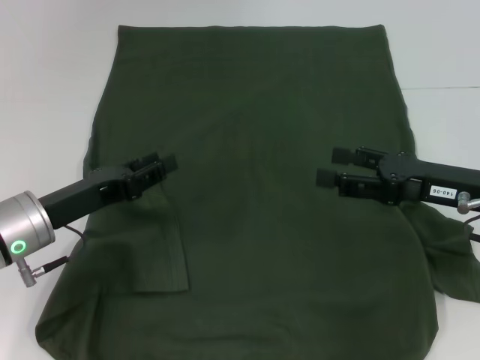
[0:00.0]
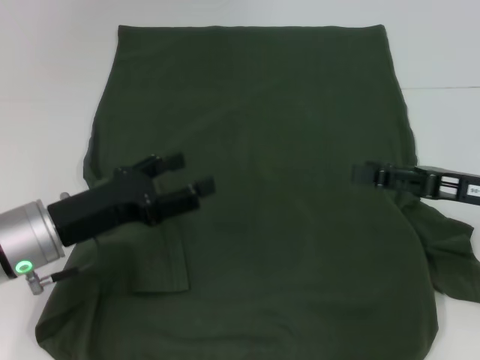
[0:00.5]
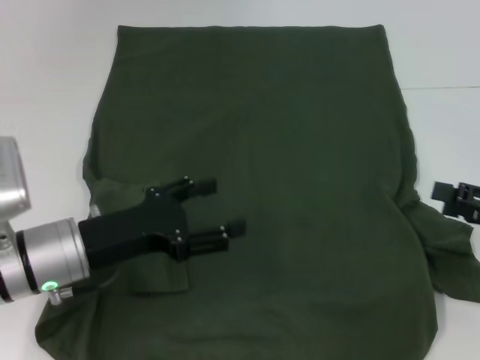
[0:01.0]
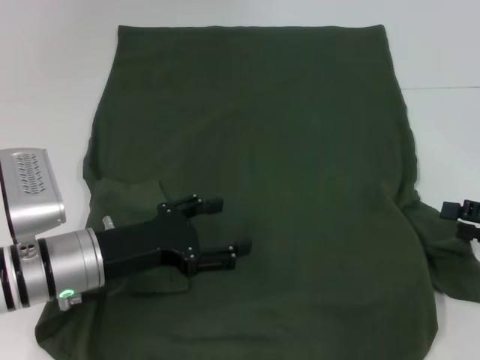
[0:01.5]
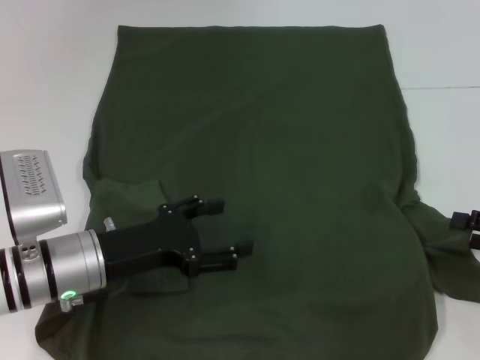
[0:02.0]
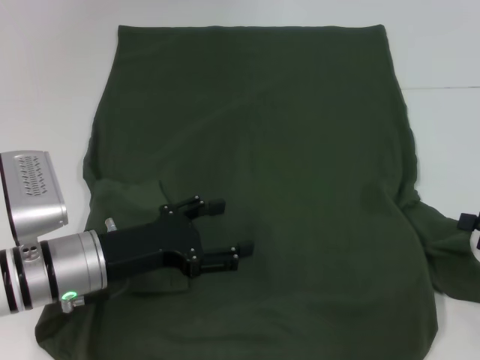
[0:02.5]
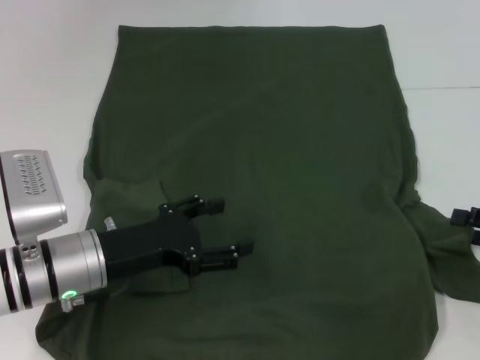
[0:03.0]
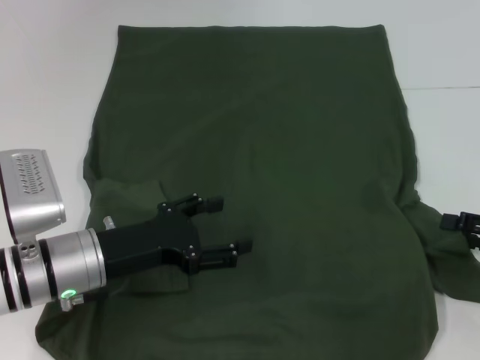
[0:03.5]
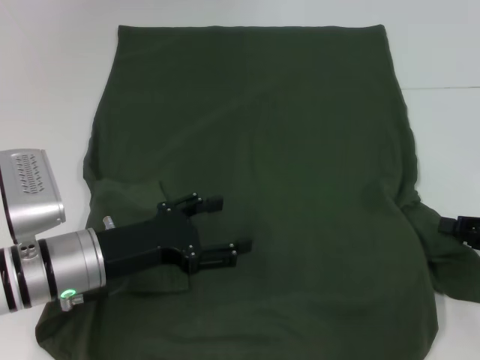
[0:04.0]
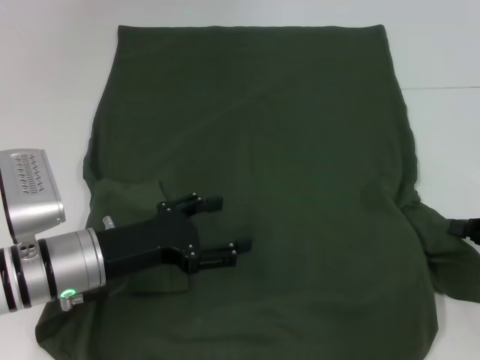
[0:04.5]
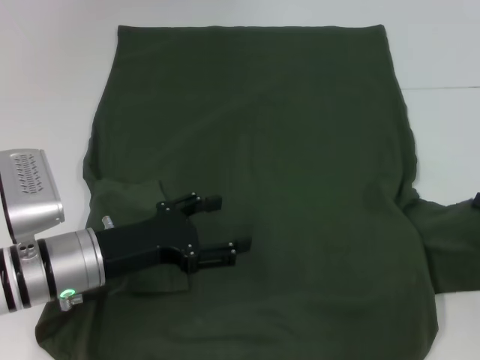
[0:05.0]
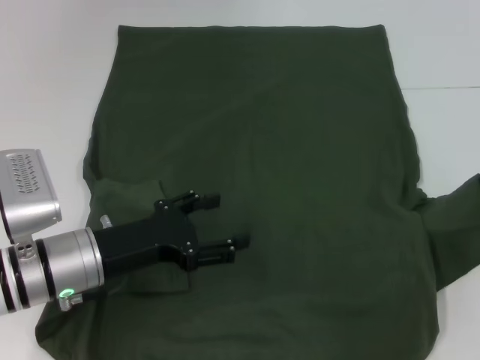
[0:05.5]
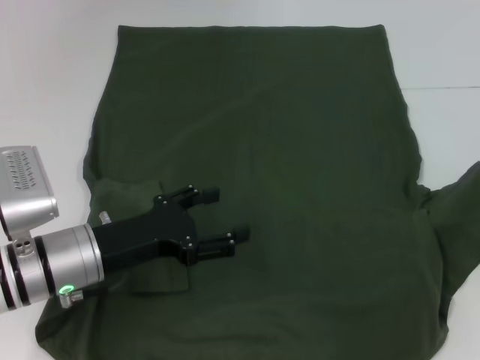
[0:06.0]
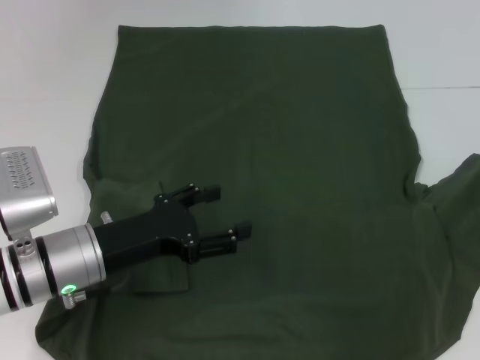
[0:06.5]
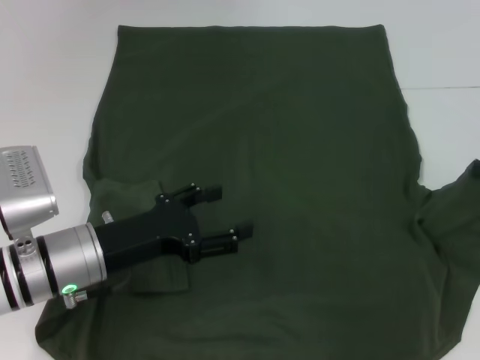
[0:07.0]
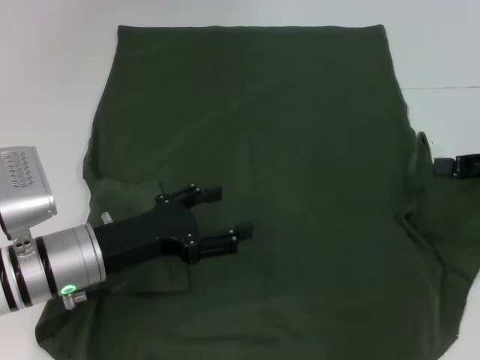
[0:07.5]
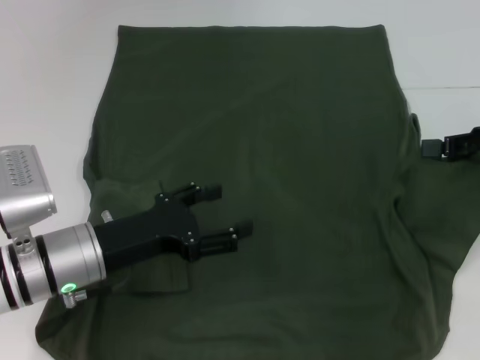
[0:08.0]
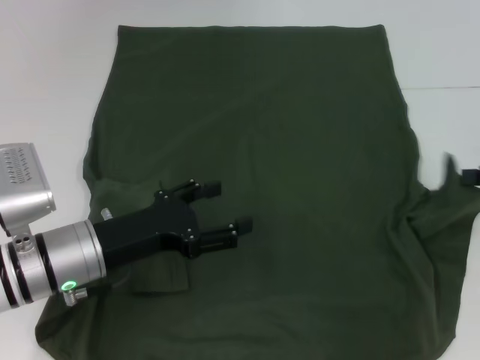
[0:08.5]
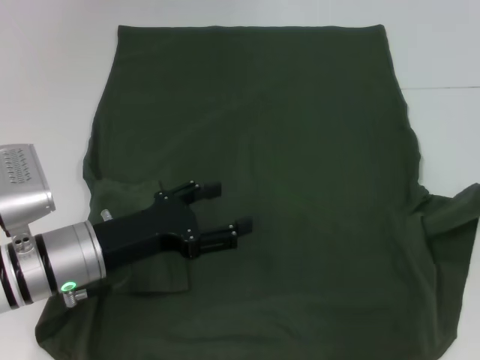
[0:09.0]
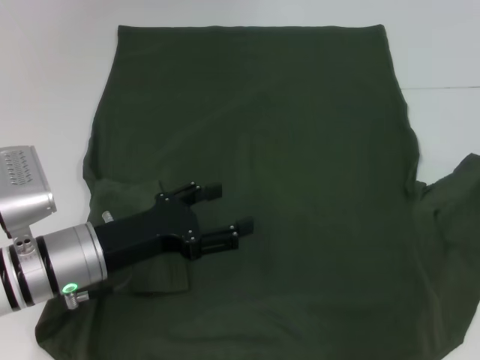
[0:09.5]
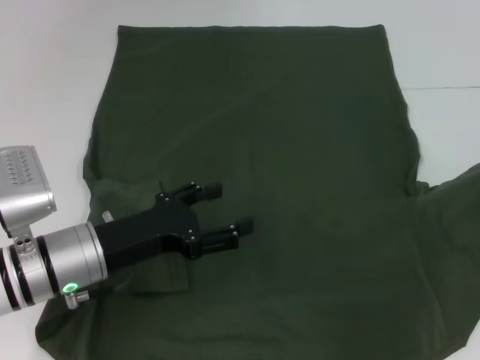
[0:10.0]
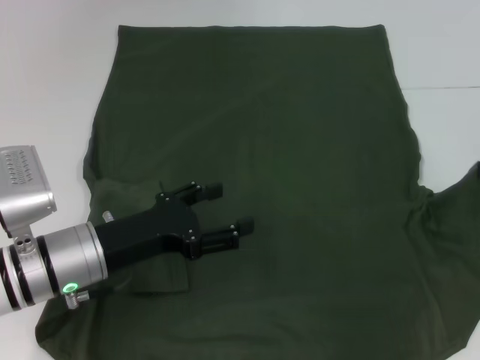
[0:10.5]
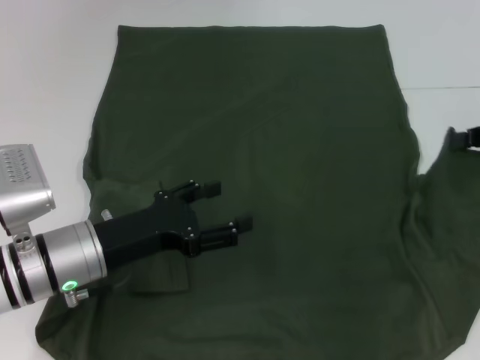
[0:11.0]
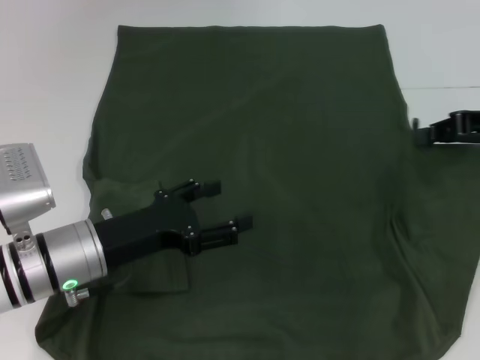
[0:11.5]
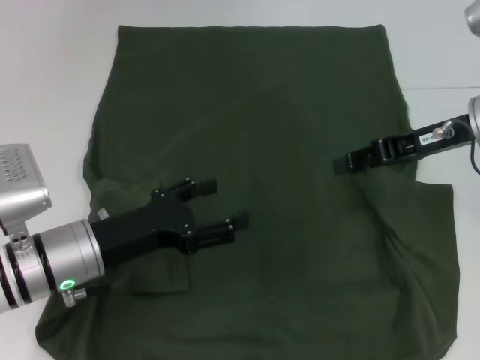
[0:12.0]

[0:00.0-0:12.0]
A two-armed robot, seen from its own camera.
0:00.0 to 0:02.0: The left gripper ends up roughly 5 cm from where it was, and opens. Meanwhile the right gripper shifts roughly 10 cm to the right.
0:04.0 to 0:06.0: The right gripper travels upward by about 5 cm, and closes its fingers.
0:06.0 to 0:08.0: The right gripper shifts some 5 cm to the left.
0:08.0 to 0:10.0: The right gripper heads to the right, covering some 5 cm.
0:10.0 to 0:12.0: The right gripper shifts some 15 cm to the left.

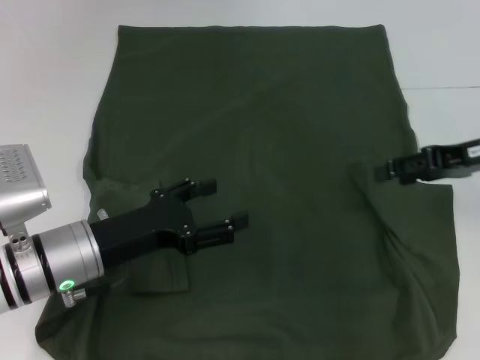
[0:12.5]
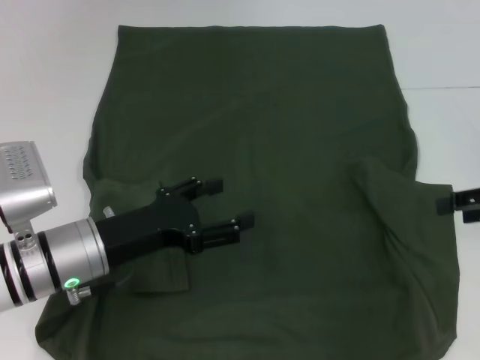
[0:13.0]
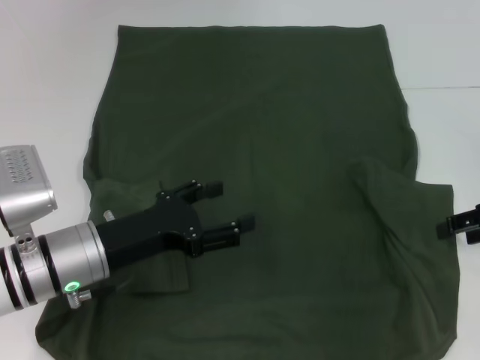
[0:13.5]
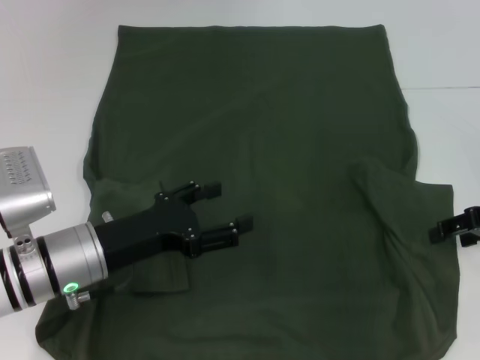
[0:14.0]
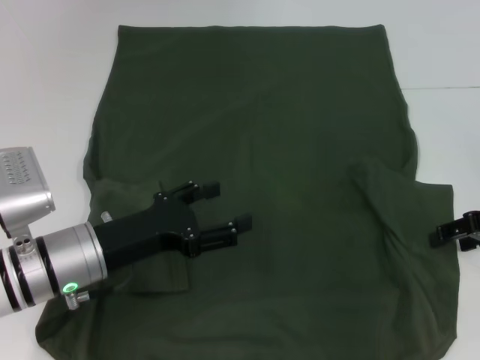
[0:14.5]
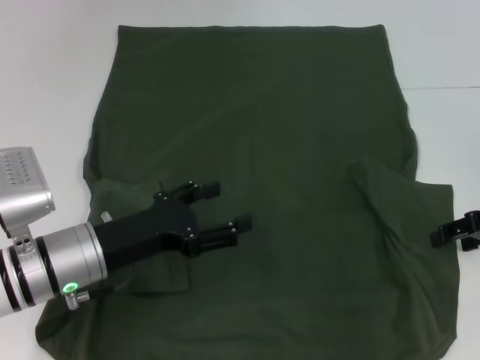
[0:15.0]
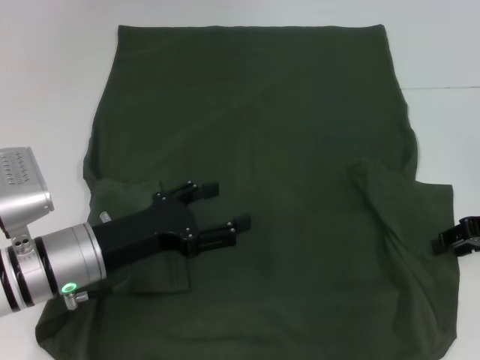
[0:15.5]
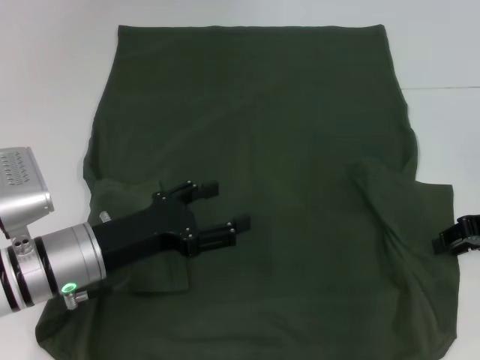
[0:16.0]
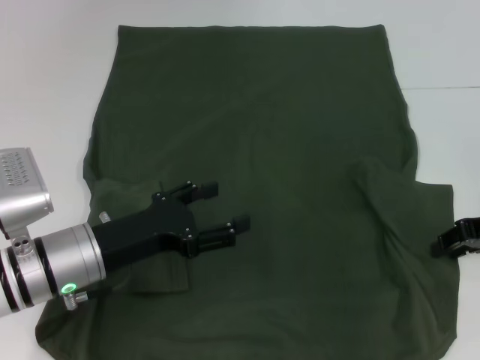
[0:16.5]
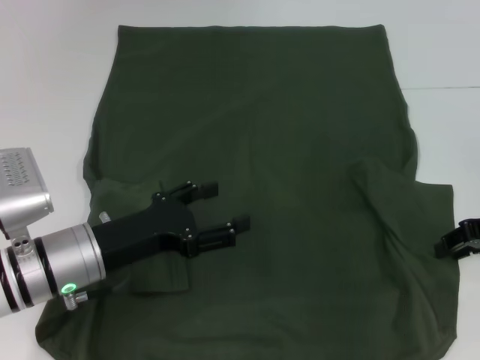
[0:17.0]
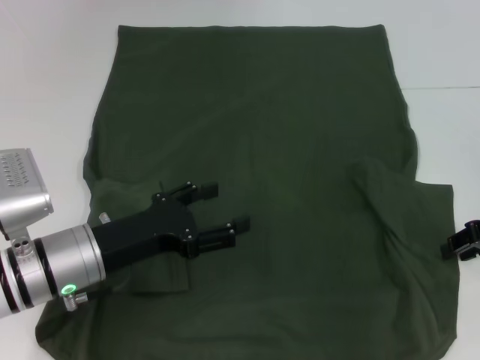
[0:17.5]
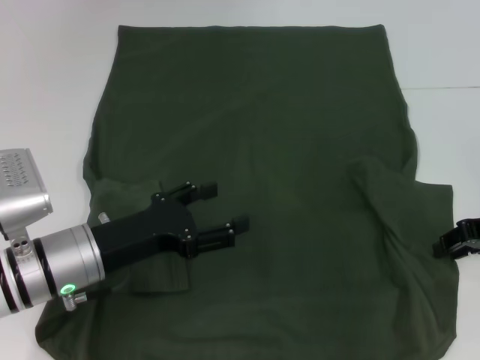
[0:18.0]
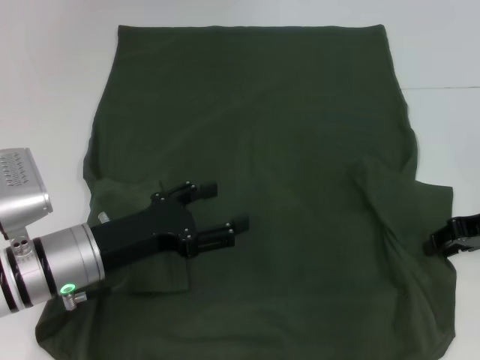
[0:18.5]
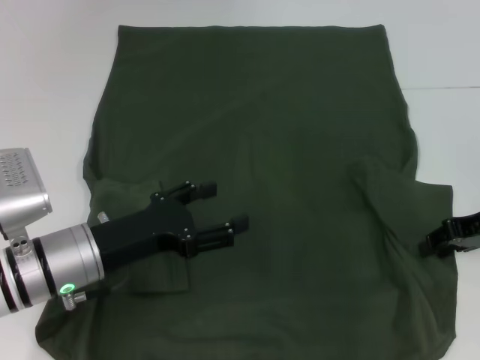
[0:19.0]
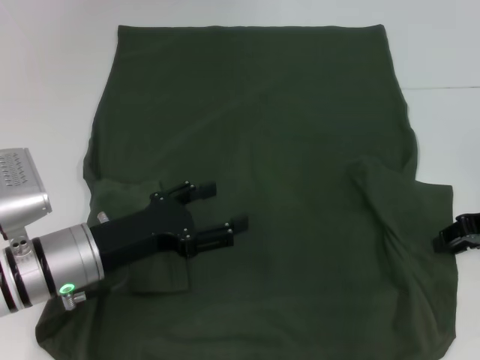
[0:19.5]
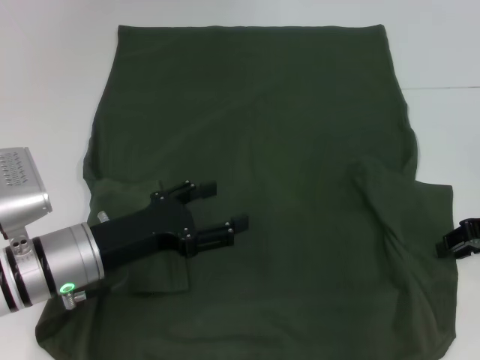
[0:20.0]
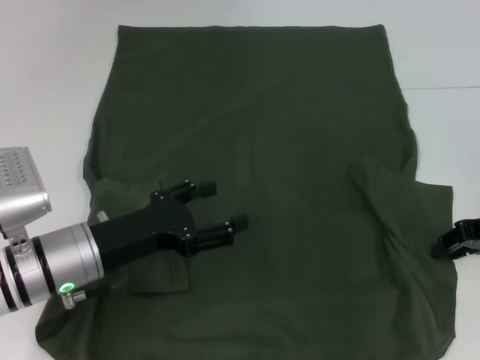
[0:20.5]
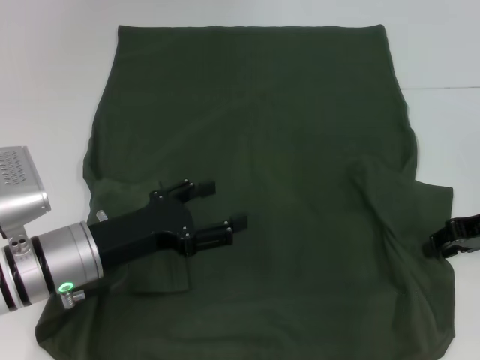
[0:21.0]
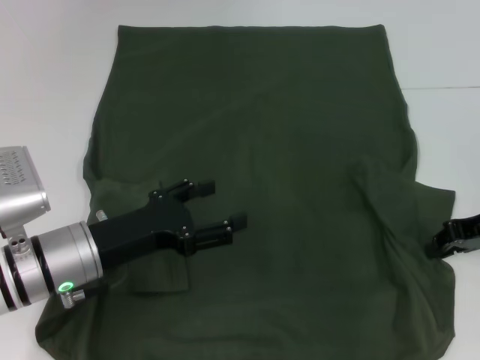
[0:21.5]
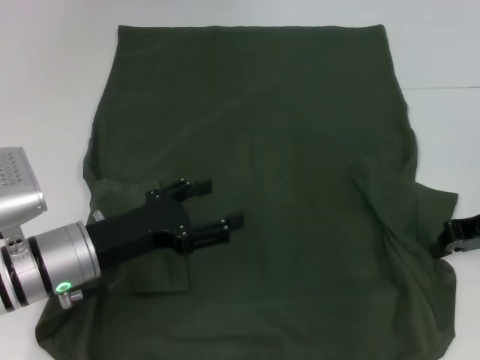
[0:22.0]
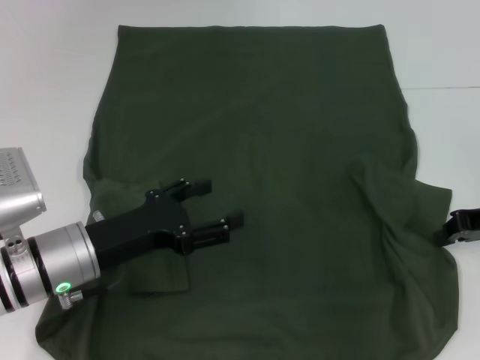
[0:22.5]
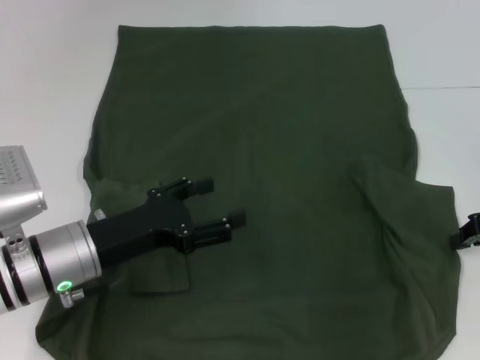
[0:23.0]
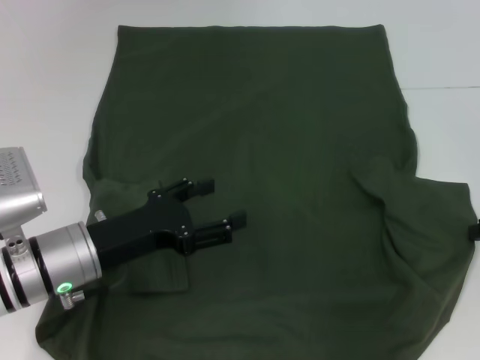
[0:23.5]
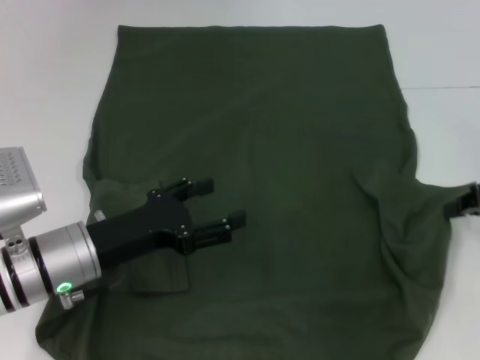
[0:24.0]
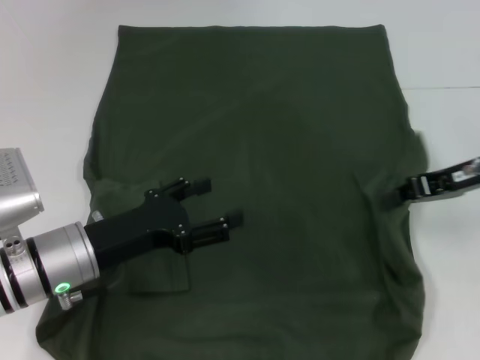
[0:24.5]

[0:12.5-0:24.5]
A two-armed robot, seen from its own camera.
0:12.5 to 0:14.5: The right gripper changes place by roughly 5 cm.
0:14.5 to 0:16.5: The right gripper closes its fingers.
0:16.5 to 0:20.5: Both grippers stay put.
0:20.5 to 0:22.5: The right gripper closes its fingers.
0:22.5 to 0:24.5: The right gripper shifts by about 5 cm.

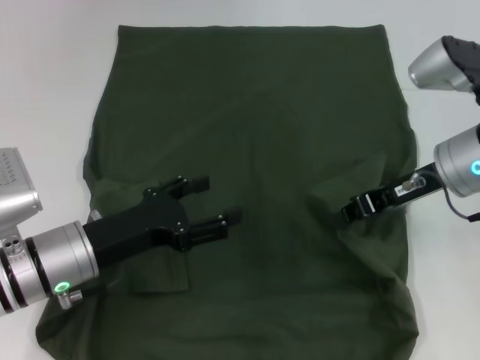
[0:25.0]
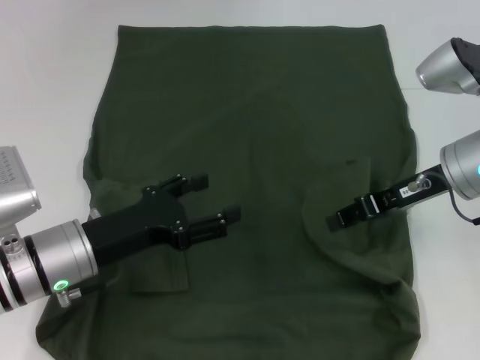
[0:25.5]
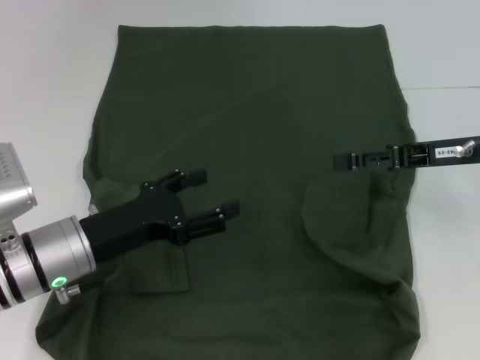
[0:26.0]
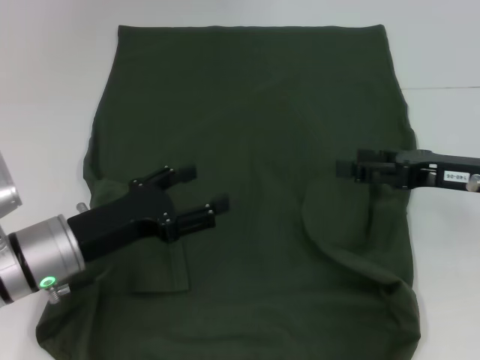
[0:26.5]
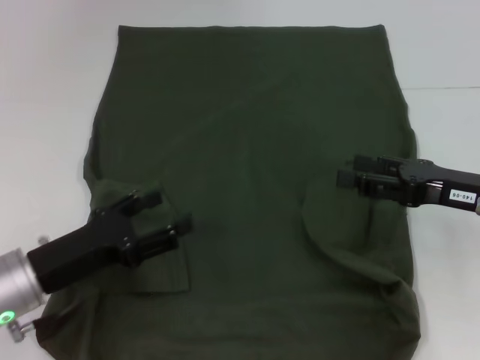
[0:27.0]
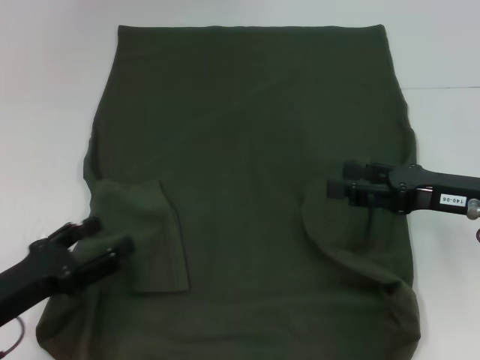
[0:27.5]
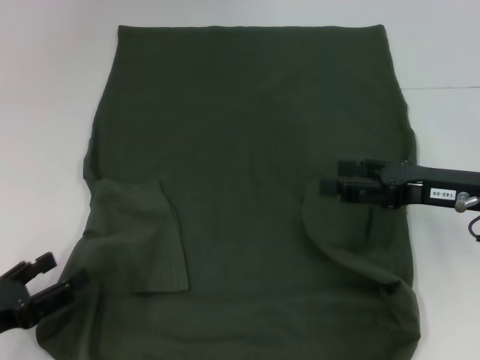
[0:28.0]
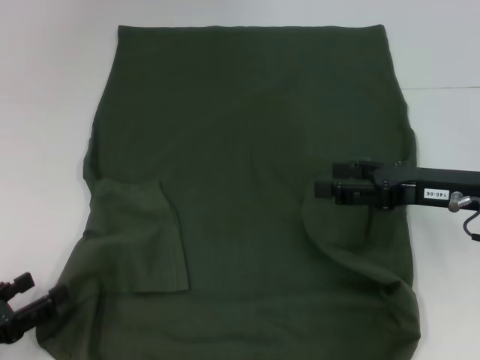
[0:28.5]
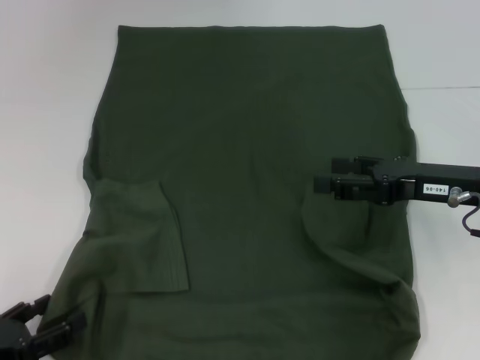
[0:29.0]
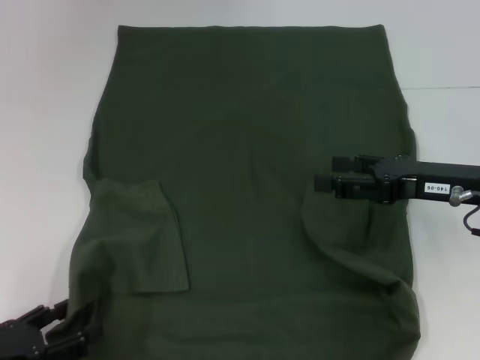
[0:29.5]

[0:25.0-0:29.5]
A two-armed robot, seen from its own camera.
0:25.0 to 0:27.0: The right gripper shifts roughly 10 cm backward and to the right, and opens; the left gripper moves about 5 cm.
0:27.0 to 0:29.5: The left gripper goes roughly 10 cm backward and to the left.
